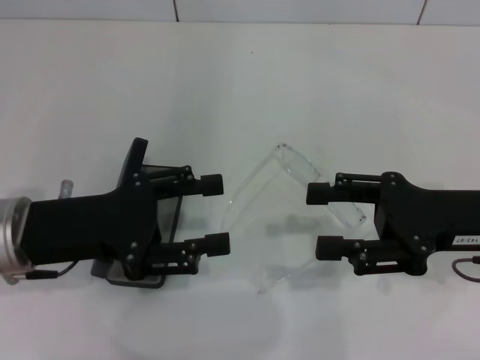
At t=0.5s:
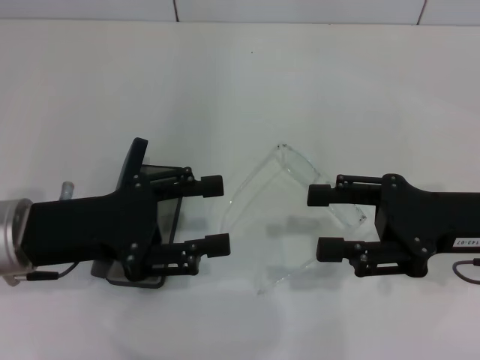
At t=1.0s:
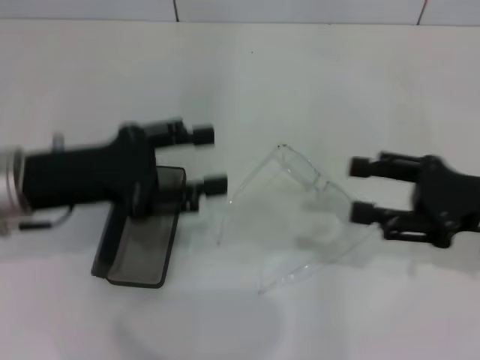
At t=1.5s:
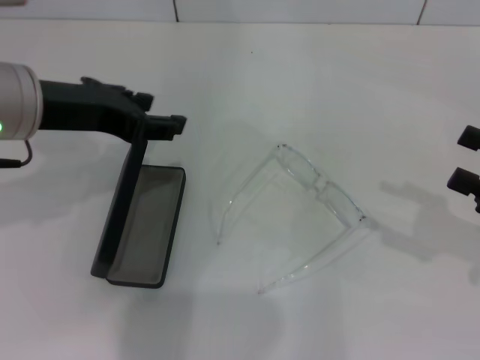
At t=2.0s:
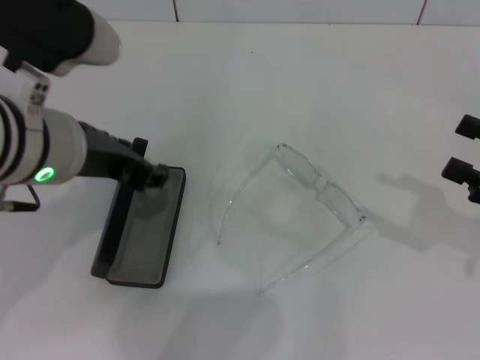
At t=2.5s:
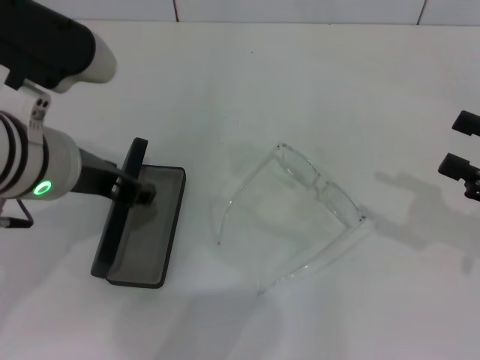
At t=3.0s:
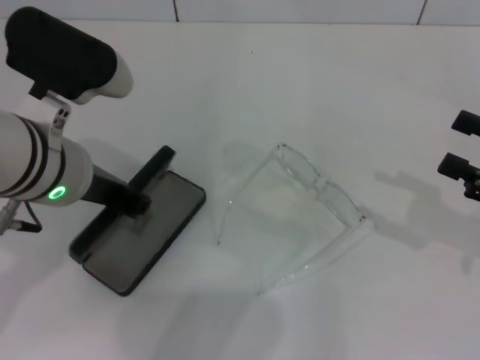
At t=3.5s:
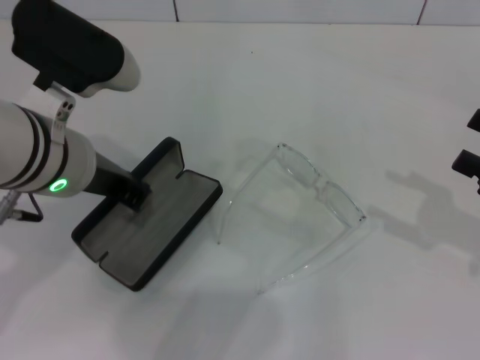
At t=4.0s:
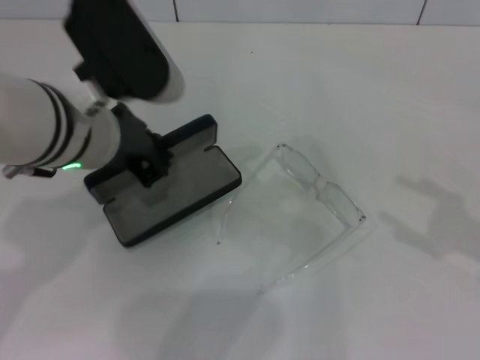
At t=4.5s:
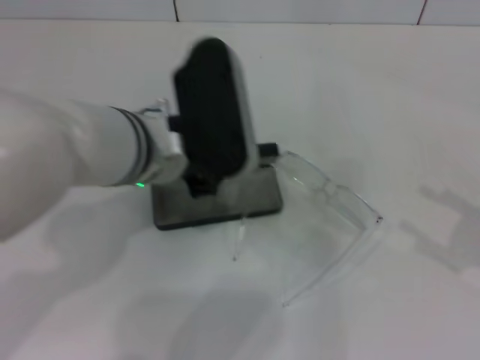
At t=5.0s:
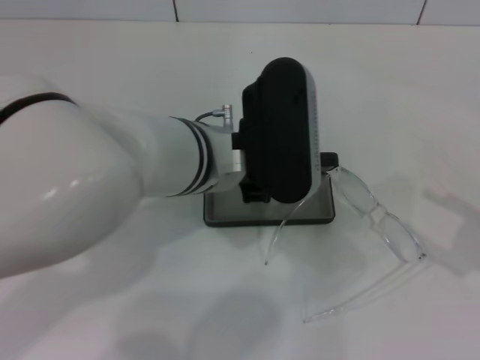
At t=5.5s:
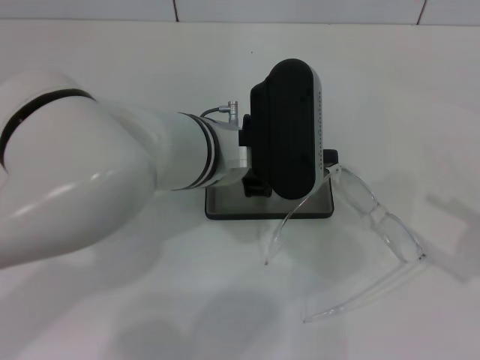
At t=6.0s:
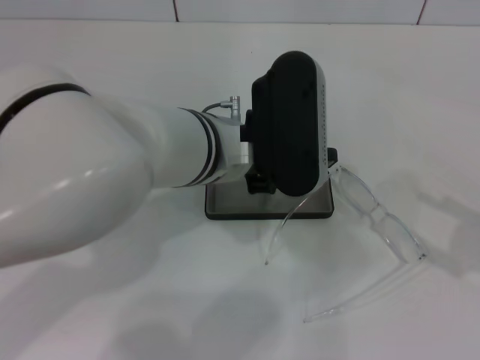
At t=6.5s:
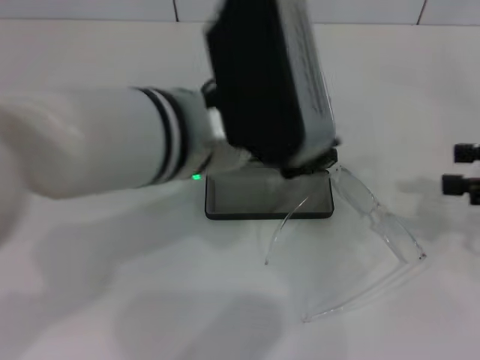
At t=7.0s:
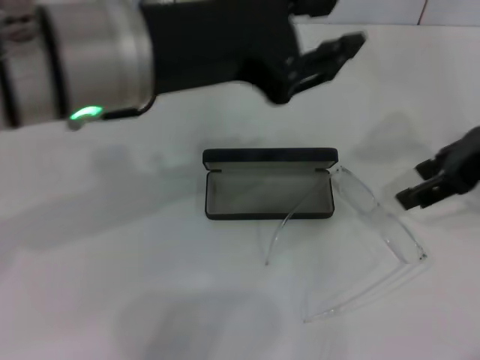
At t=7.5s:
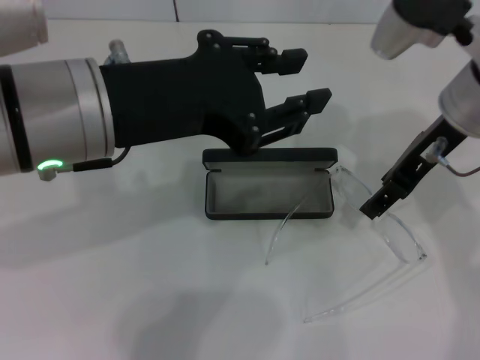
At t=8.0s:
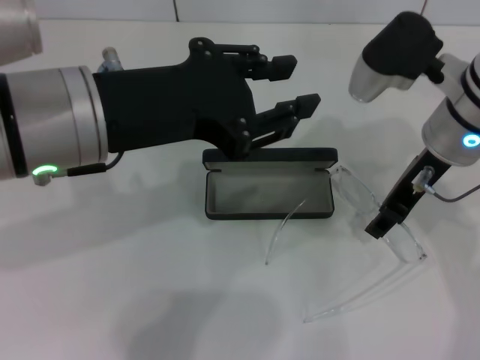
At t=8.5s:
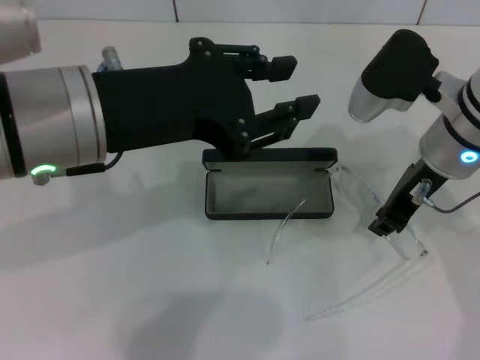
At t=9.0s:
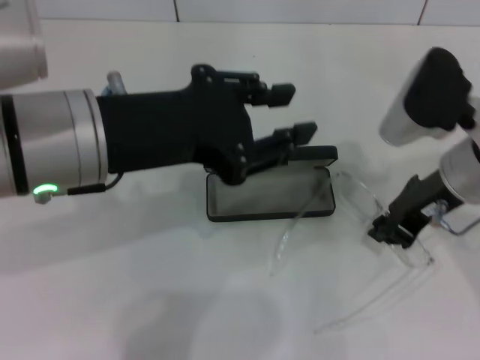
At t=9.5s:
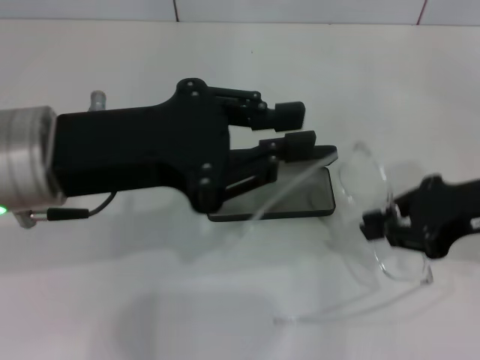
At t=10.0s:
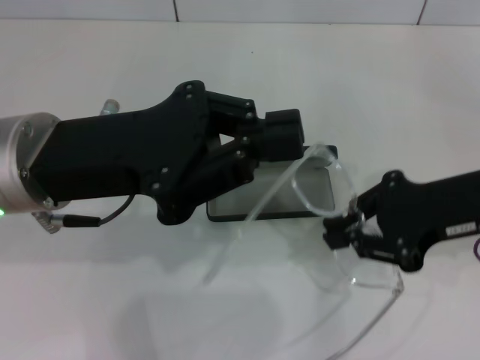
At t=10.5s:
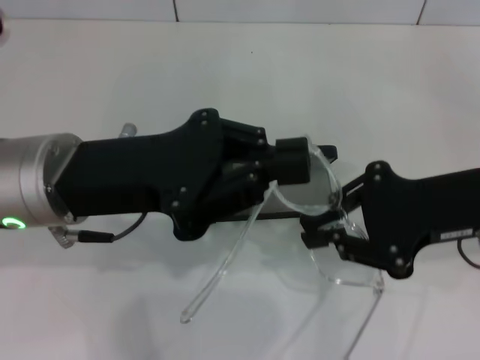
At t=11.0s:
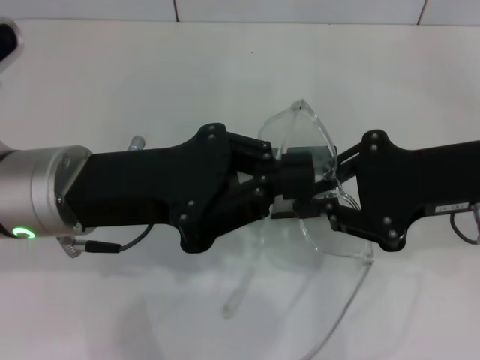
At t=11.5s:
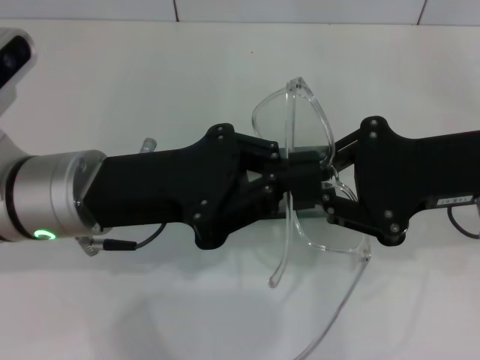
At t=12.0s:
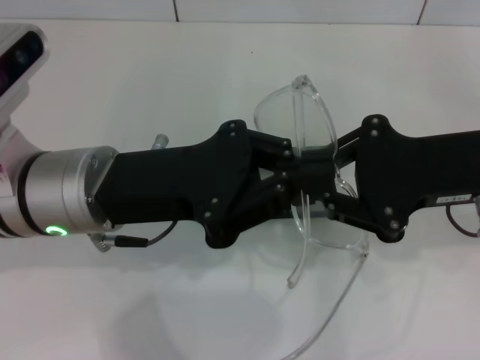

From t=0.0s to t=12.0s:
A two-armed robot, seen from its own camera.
Step, from t=0.0s to t=3.0s: Grab the glasses case with your left hand.
Step, from t=3.5s to t=5.5s: Place the glasses case in the center of the table with your left hand.
Step, from t=6.0s to t=8.5s: Grab the eyeglass frame with your right hand.
From t=0.0s to t=2.0s: The left gripper heads upward and to the right, covering roughly 10 cm. Meanwhile the right gripper is displaced to the right by approximately 10 cm.
From t=2.0s to t=4.0s: The left gripper closes its fingers.
From t=4.0s to t=6.0s: The left gripper moves to the right, approximately 10 cm.
From t=6.0s to t=8.0s: The left gripper shifts some 15 cm to the left, upward and backward. The right gripper travels to the left and forward by about 25 cm.
From t=8.0s to t=10.0s: The left gripper ends up roughly 5 cm from where it was, and closes its fingers, while the right gripper is displaced backward and to the right by approximately 10 cm, and closes its fingers.

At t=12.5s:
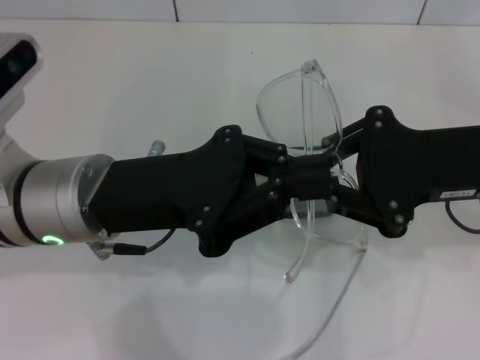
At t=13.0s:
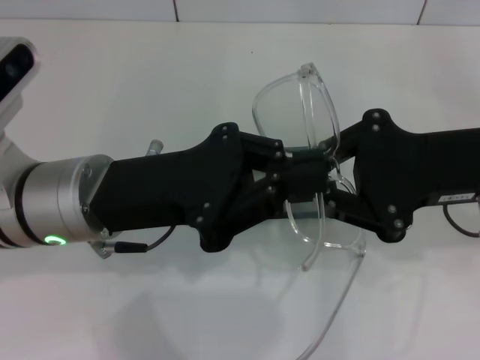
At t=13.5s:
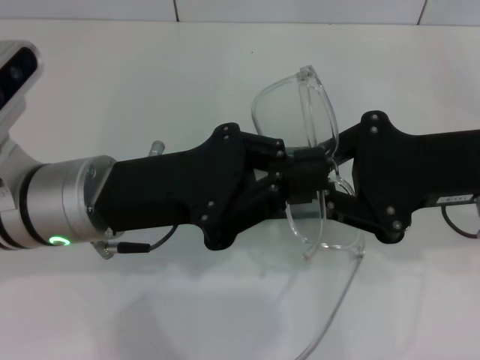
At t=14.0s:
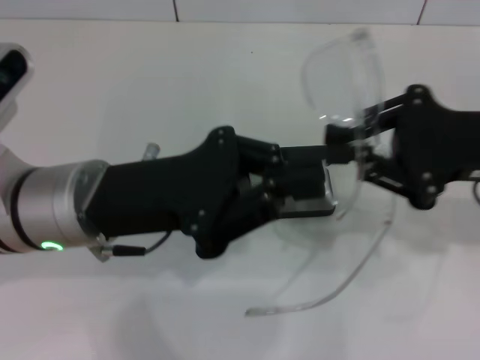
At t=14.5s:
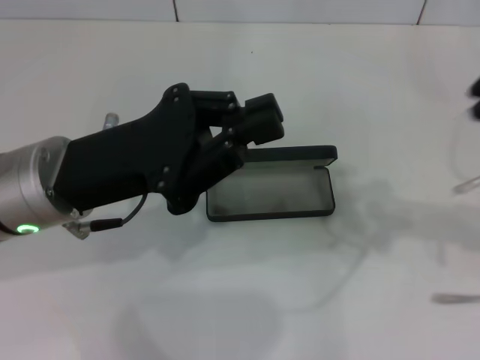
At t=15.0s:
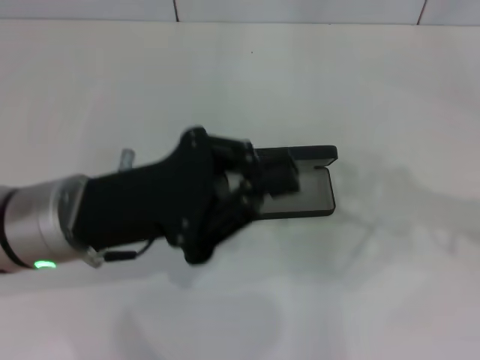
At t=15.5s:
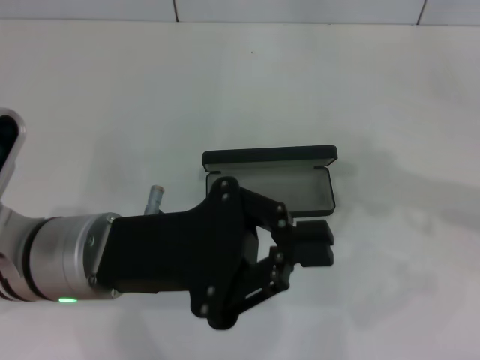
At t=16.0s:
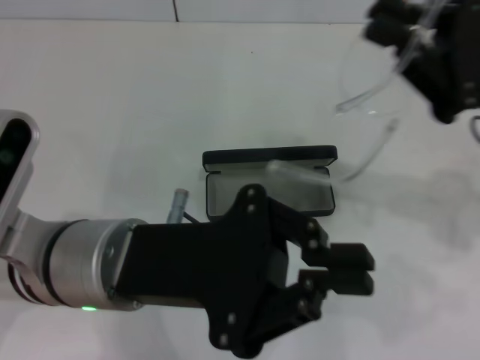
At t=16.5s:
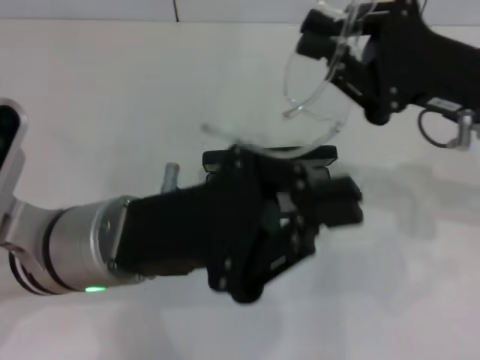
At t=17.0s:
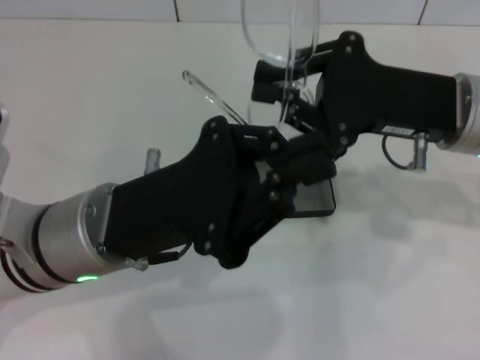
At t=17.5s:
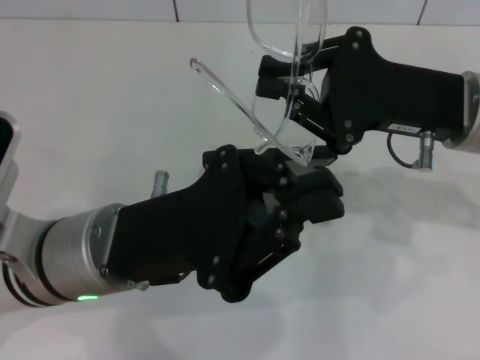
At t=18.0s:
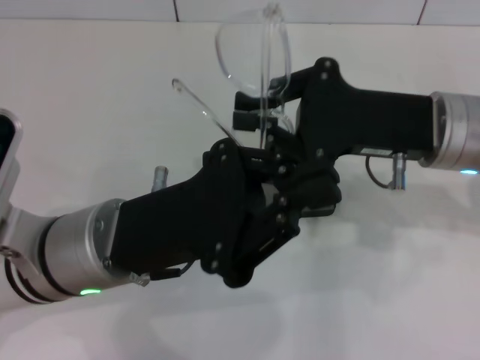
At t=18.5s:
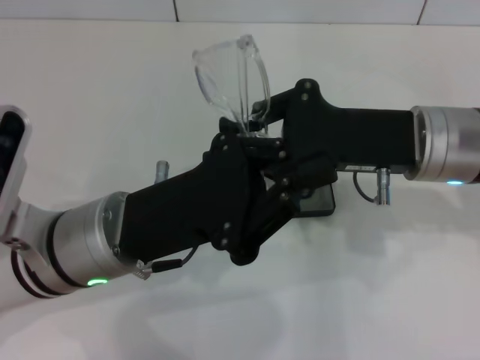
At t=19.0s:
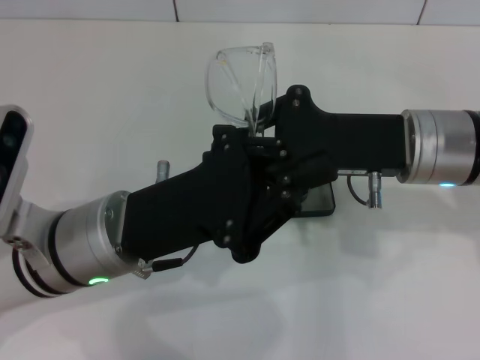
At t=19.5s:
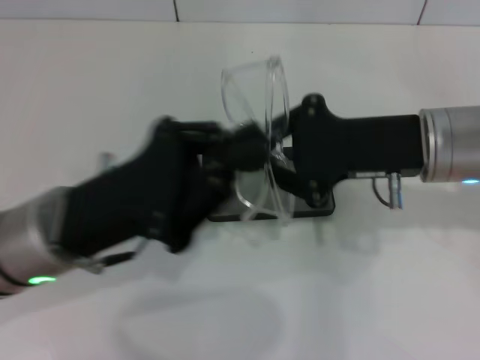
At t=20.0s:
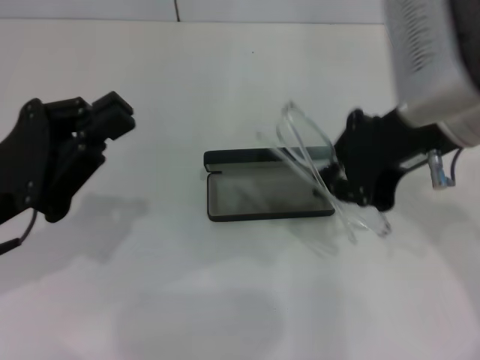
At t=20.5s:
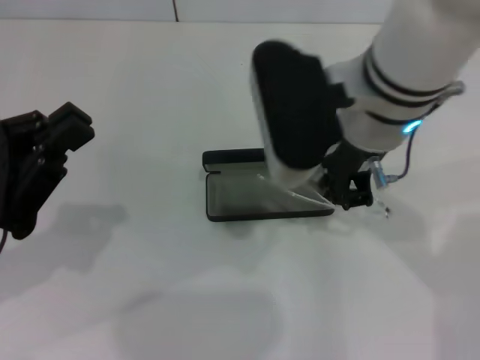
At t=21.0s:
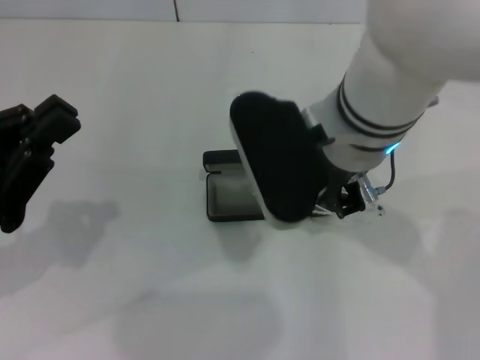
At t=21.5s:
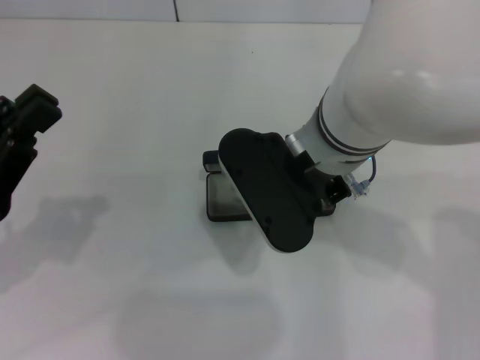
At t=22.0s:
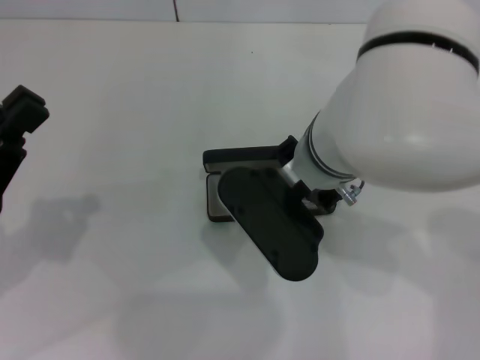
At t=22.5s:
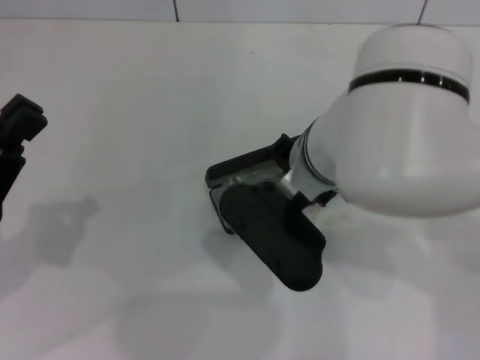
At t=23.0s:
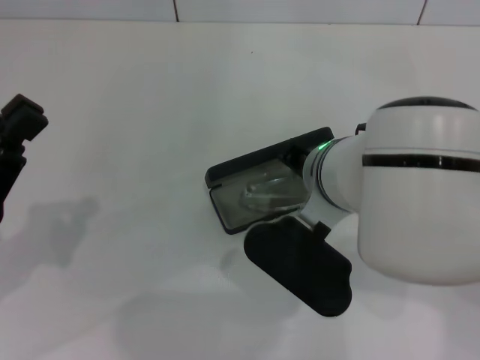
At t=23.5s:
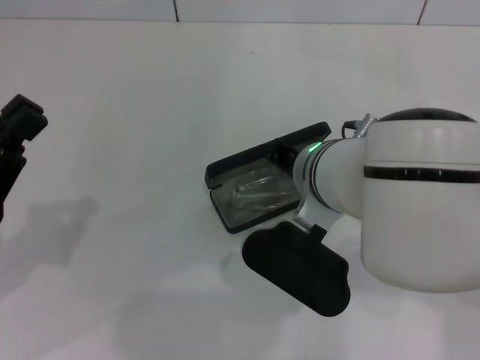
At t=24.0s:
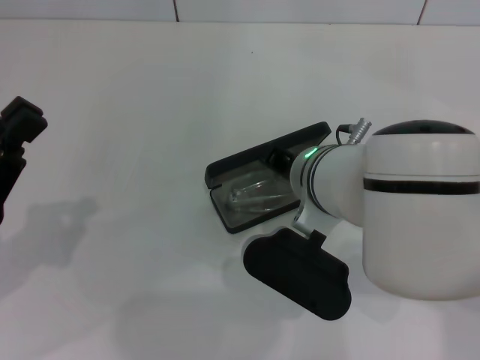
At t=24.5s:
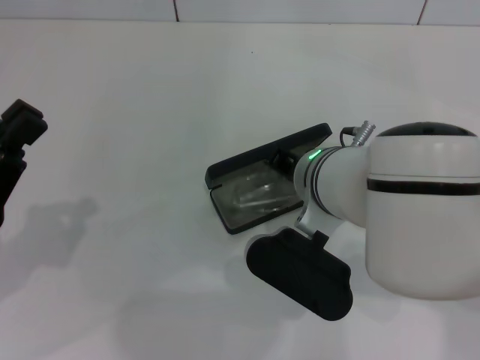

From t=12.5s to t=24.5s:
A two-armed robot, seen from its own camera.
Step, from t=12.5s to t=19.0s: Fold the frame with your left hand.
From t=12.5s to t=14.5s: The right gripper shifts roughly 10 cm to the right.
From t=14.5s to t=16.5s: The left gripper changes place by about 5 cm. Meanwhile the right gripper travels to the left and forward by roughly 10 cm.
From t=16.5s to t=18.5s: The right gripper shifts by some 5 cm.
From t=18.5s to t=20.5s: The right gripper heads to the left and upward, covering some 10 cm. The left gripper moves to the left, approximately 15 cm.
From t=20.5s to t=22.5s: The right gripper goes roughly 5 cm downward.
From t=22.5s to t=24.5s: There are only small adjustments of the grippers.

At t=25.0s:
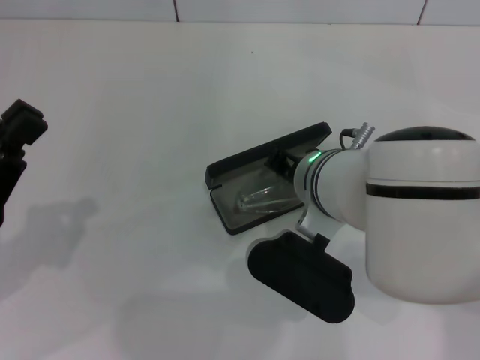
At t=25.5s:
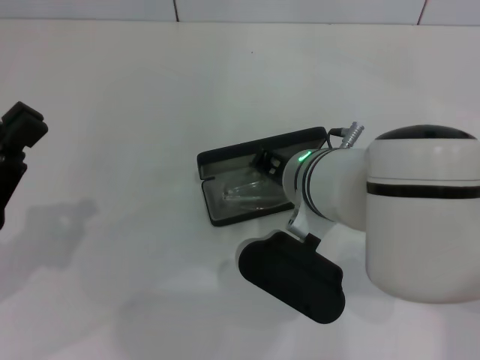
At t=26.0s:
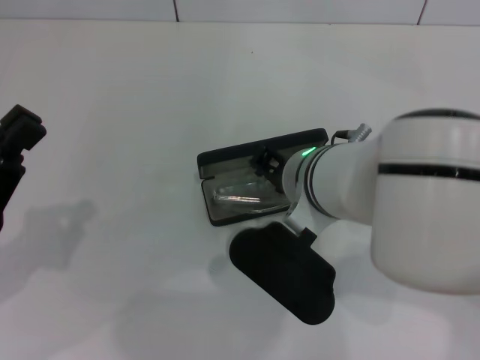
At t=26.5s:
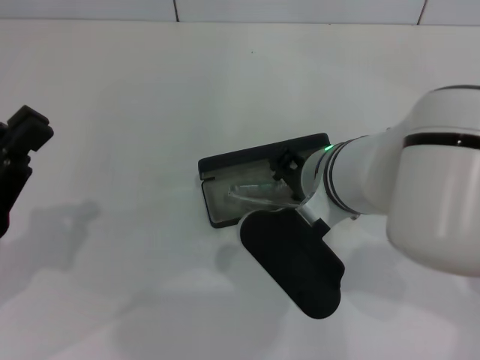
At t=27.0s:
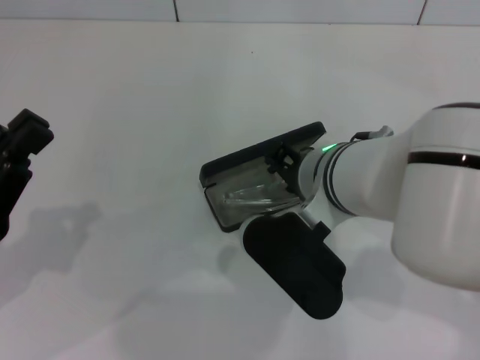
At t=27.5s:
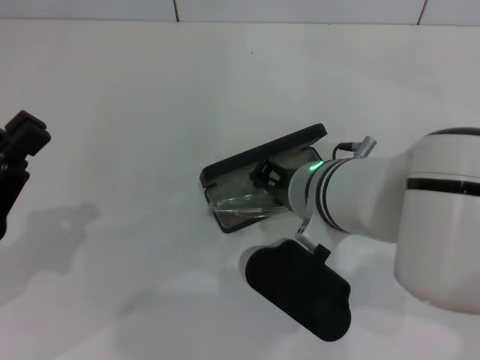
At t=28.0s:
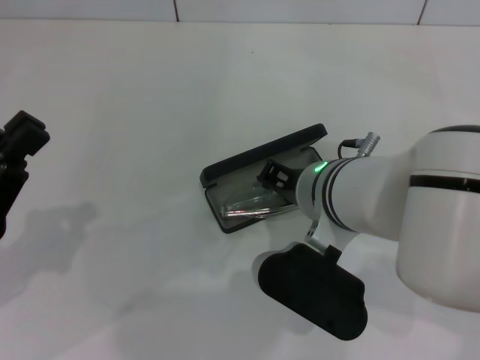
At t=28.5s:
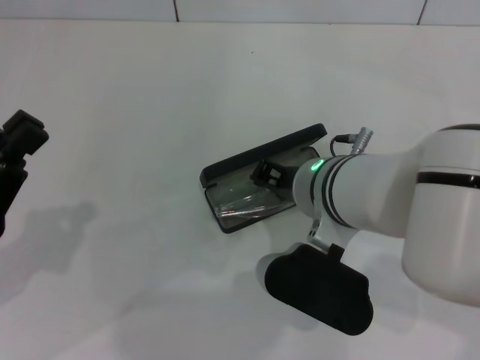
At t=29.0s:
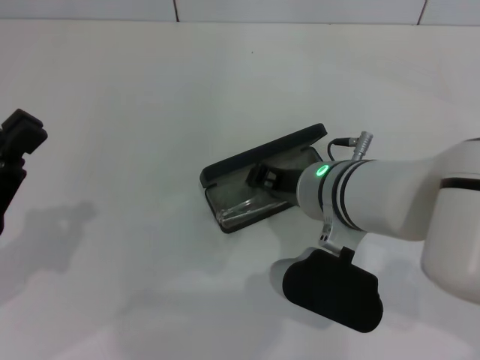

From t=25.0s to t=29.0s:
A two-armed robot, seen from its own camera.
From t=25.0s to t=27.0s: The grippers stay close to where they were, moving slightly.
